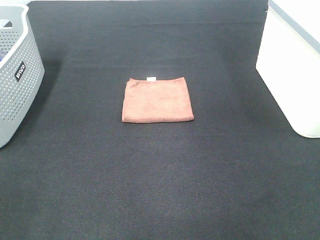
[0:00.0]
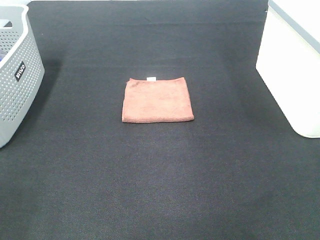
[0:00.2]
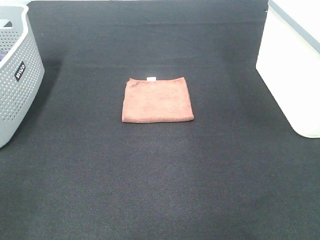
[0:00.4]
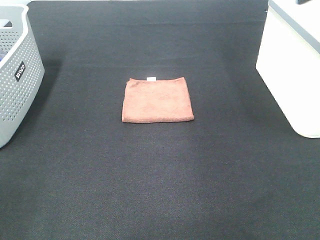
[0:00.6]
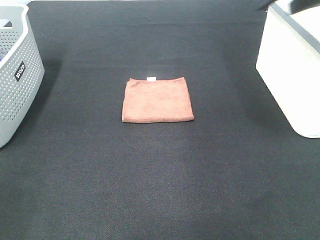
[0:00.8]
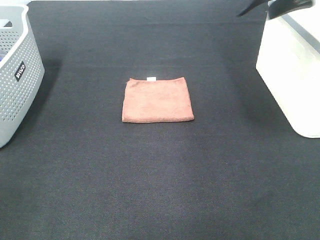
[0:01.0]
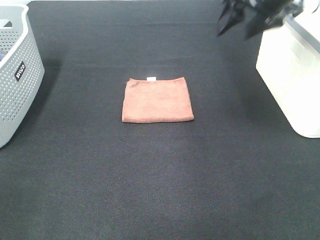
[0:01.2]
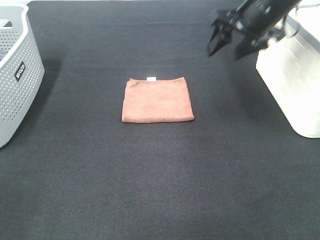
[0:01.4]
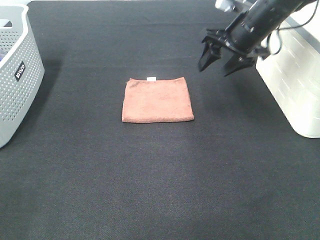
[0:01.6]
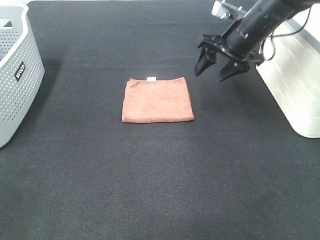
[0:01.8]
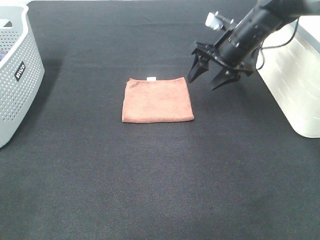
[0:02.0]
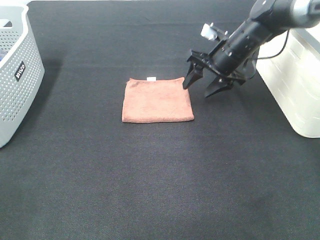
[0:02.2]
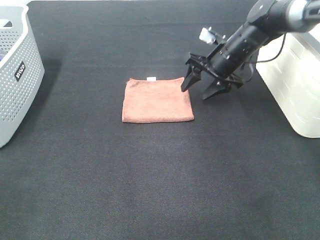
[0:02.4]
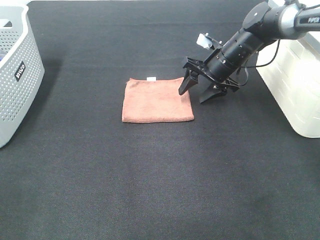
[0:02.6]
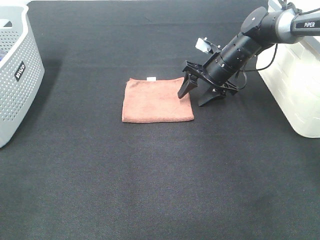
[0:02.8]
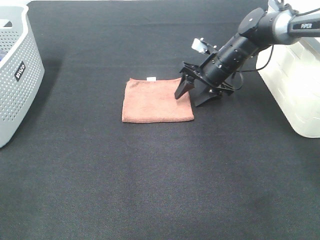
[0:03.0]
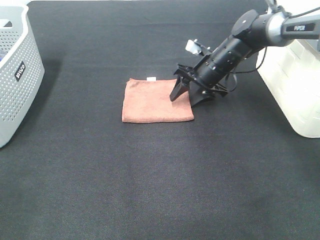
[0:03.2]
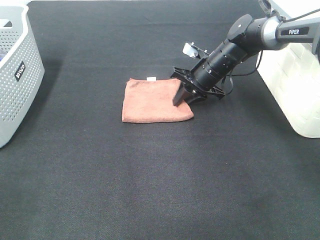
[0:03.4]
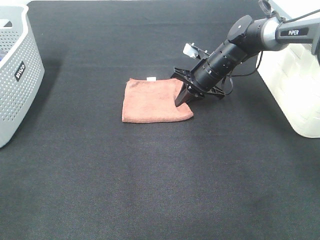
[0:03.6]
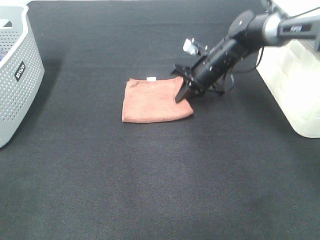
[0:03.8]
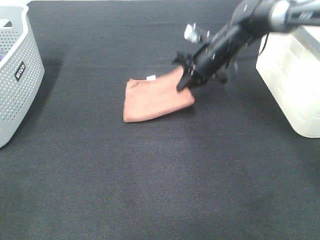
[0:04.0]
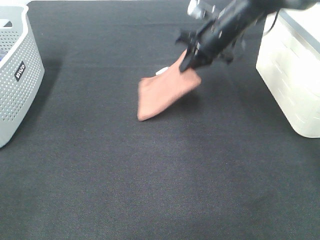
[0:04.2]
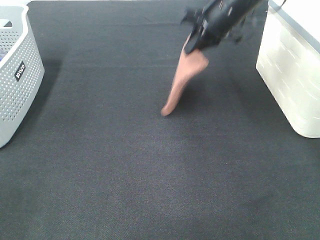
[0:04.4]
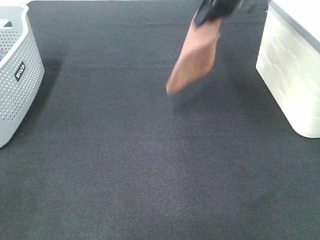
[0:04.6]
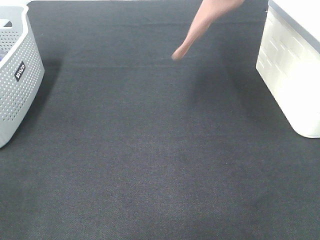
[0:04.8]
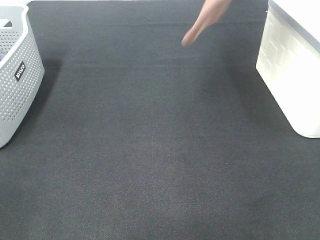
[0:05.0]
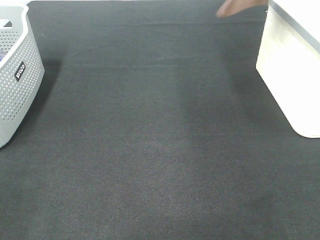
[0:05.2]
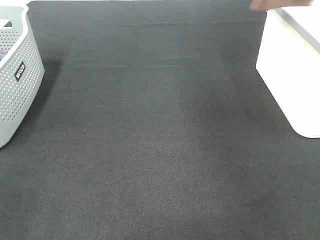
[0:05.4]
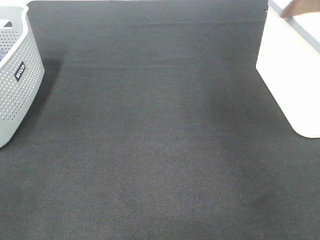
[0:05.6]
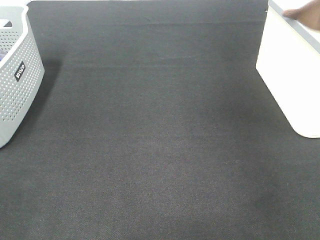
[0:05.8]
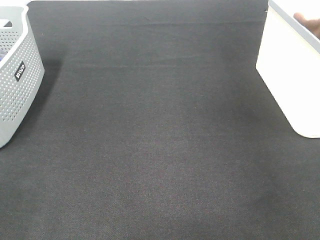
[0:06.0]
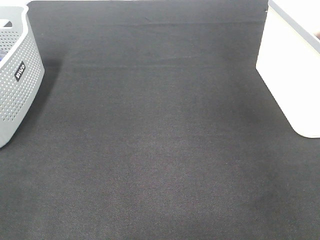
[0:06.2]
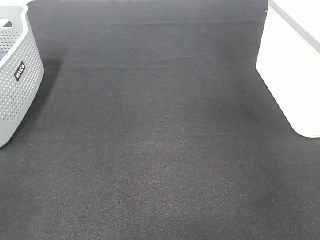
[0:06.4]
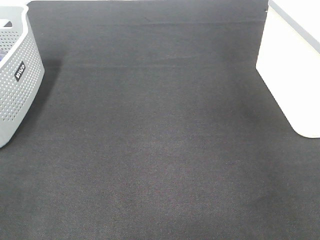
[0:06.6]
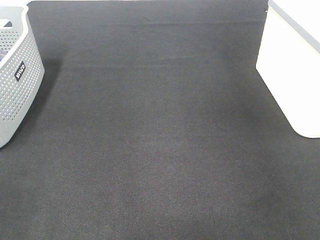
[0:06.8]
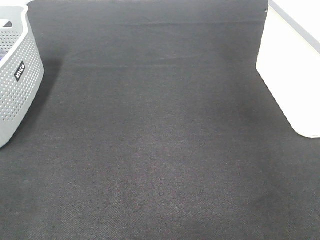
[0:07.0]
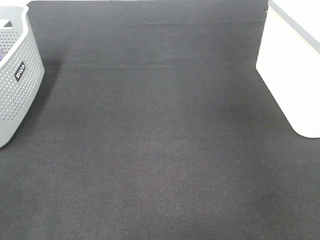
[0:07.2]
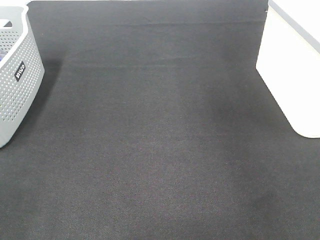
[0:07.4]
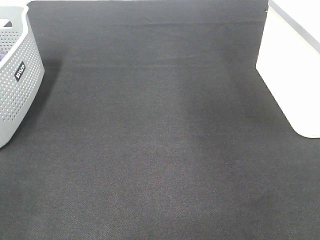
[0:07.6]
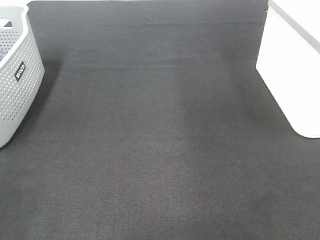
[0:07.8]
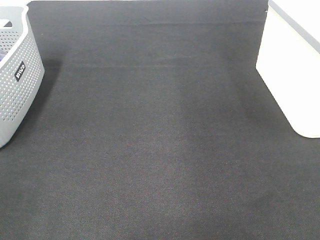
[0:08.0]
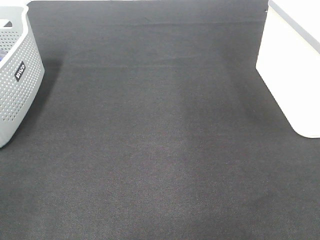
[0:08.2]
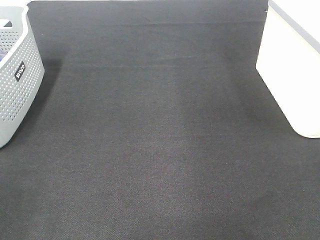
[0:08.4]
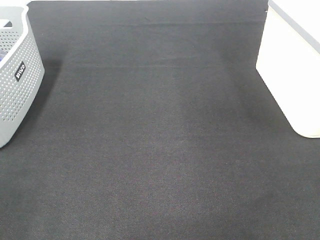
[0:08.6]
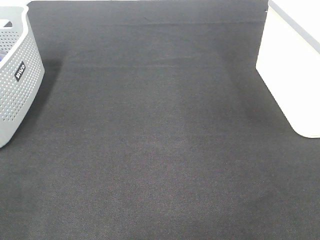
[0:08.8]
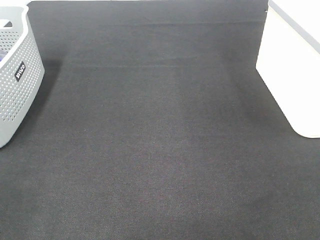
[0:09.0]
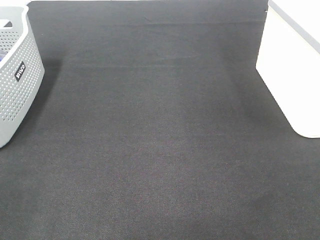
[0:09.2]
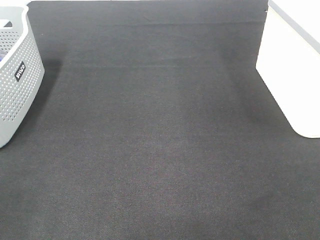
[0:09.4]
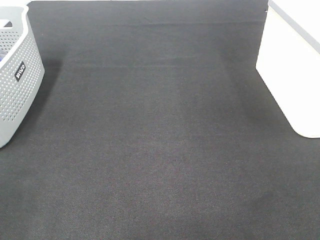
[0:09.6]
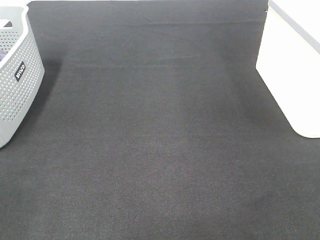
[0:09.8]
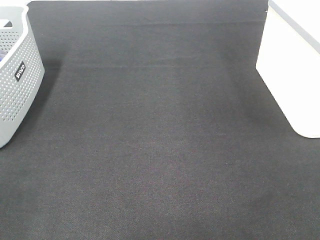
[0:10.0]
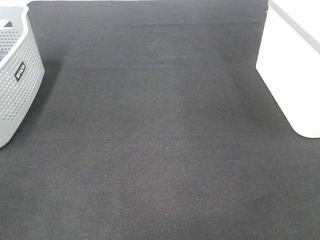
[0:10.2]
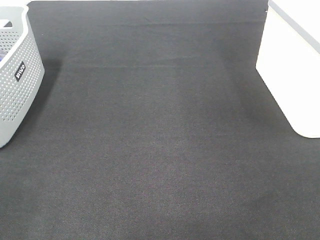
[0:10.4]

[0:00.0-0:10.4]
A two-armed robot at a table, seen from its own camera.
Step, 0:00.0 to 0:03.8: Right hand: grab the folded brown towel.
Step, 0:04.0 to 0:07.0: Right hand: place the brown towel in right basket.
0:00.0 to 0:01.4: The right gripper goes some 30 cm forward.
0:01.4 to 0:03.0: The right gripper moves downward and forward, approximately 15 cm.
0:03.0 to 0:04.4: The right gripper moves upward, about 15 cm, and closes up.
0:04.4 to 0:06.0: The right gripper goes some 25 cm to the right.

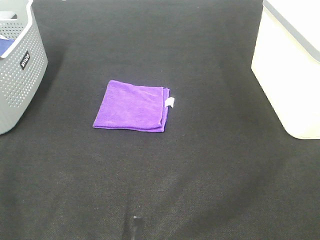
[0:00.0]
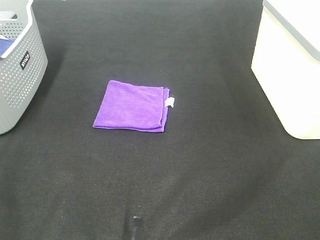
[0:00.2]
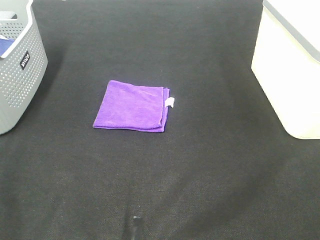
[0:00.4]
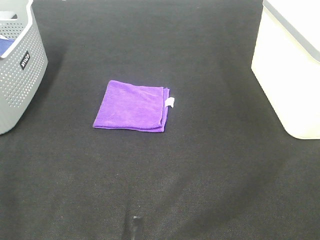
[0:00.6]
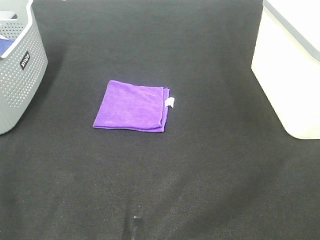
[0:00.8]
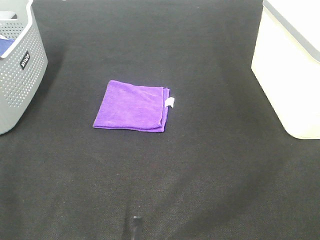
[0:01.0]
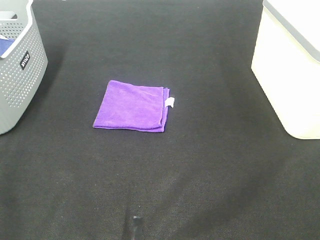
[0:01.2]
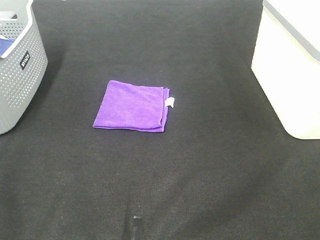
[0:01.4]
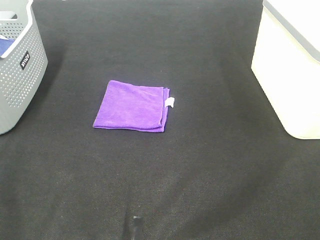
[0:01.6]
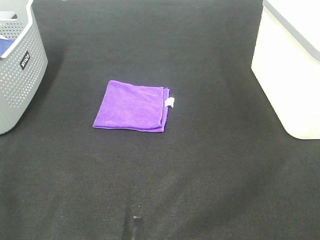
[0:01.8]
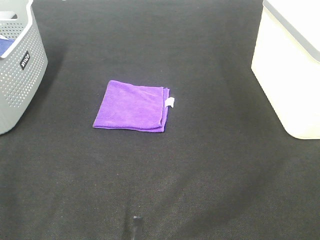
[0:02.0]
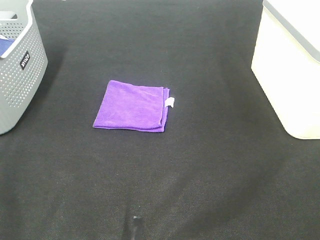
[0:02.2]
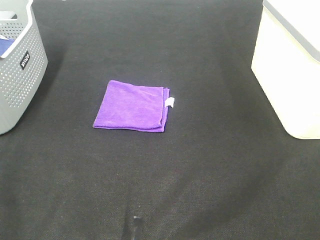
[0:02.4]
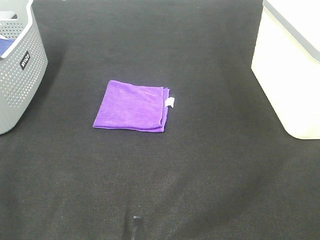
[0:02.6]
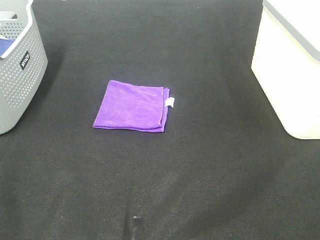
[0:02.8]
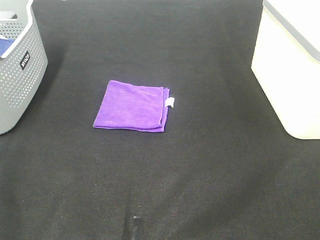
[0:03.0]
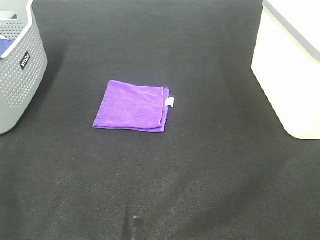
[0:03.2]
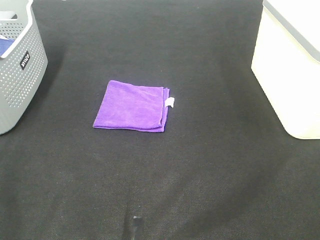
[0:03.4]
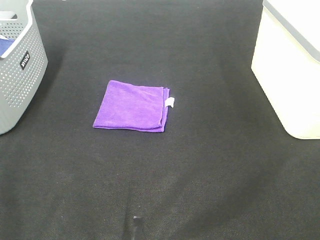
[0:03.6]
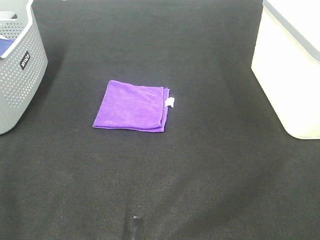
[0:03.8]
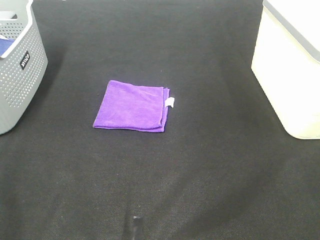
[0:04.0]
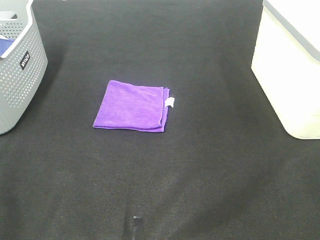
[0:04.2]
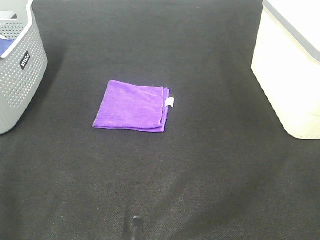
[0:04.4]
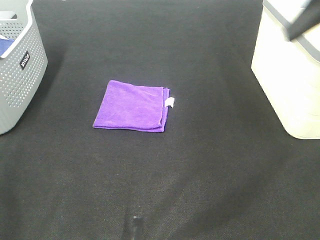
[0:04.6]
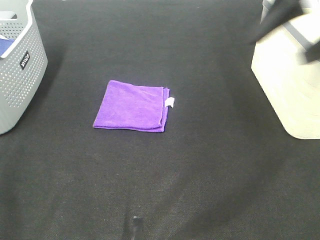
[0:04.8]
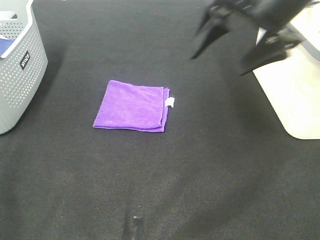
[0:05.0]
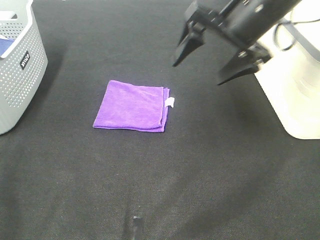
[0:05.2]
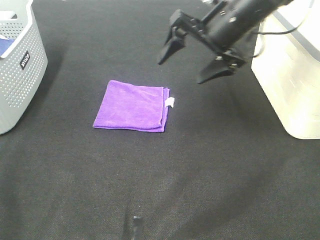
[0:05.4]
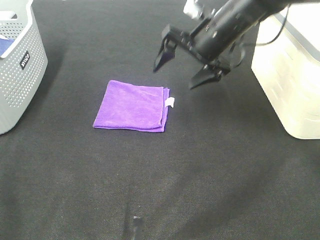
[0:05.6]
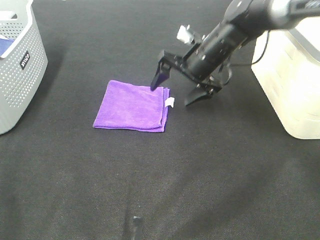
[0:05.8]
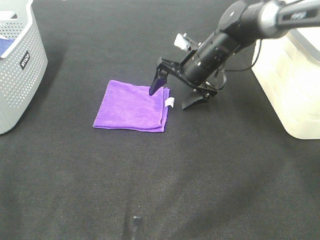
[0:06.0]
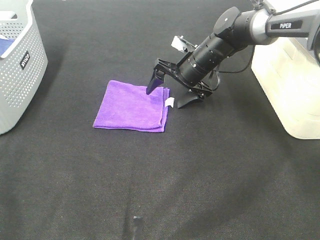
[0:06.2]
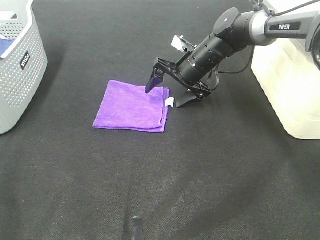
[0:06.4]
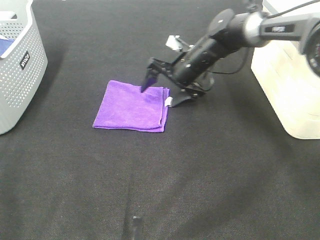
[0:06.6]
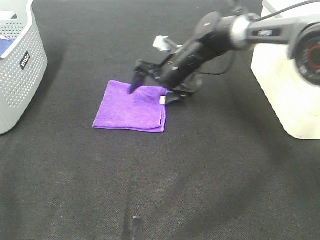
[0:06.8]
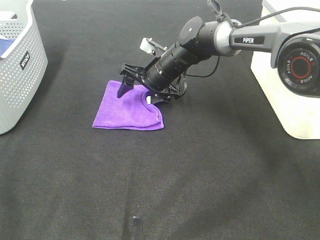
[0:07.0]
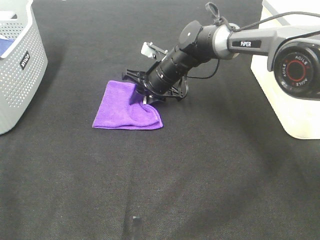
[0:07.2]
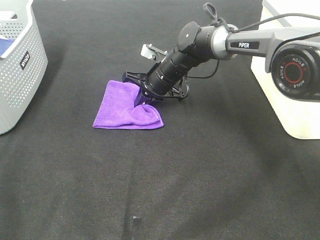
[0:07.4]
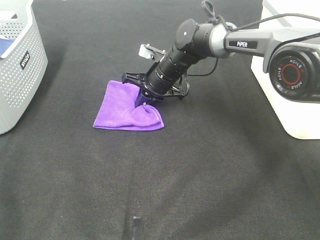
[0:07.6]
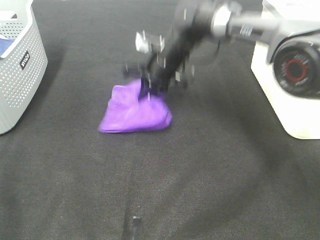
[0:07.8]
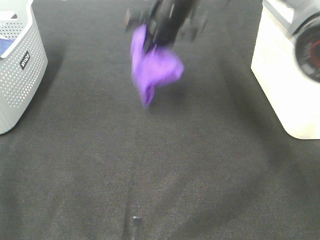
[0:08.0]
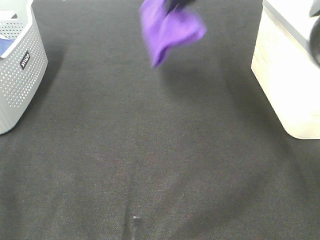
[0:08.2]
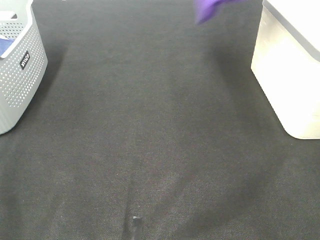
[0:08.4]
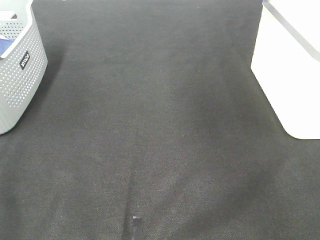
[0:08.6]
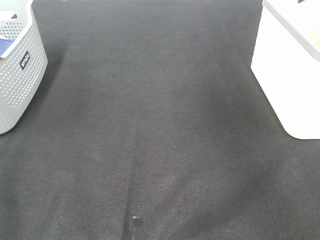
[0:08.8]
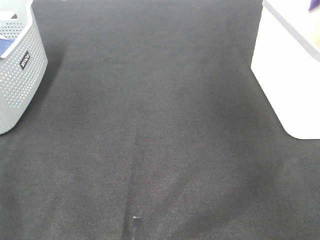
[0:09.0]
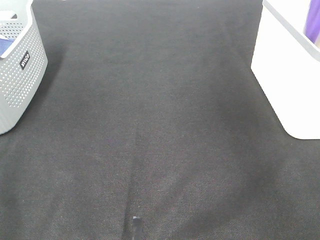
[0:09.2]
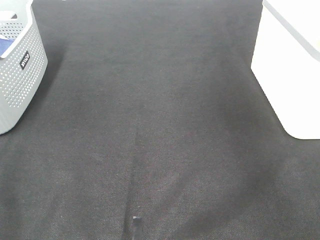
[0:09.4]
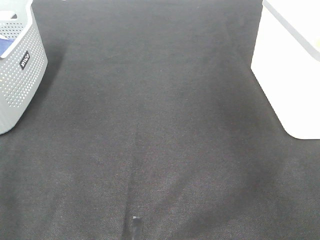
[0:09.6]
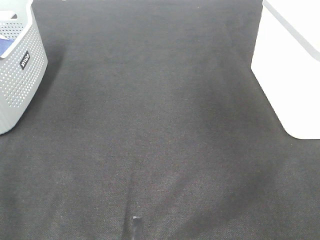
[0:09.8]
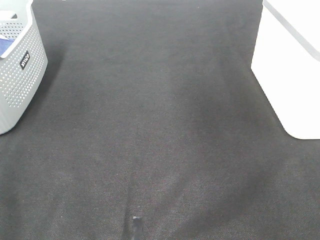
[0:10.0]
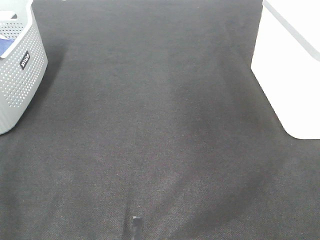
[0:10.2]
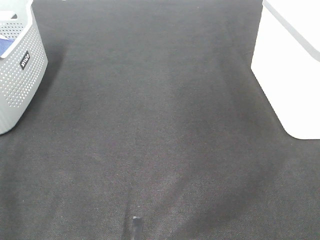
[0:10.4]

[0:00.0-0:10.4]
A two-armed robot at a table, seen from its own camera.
Step, 0:00.0 to 0:07.4: Right hand: grab the folded purple towel.
Step, 0:07.6 to 0:09.4: Right hand: place the purple towel in right basket.
0:00.0 to 0:03.0: The two grippers keep their place.
0:04.4 to 0:06.0: The right gripper heads forward, downward and to the left, covering roughly 40 cm.
0:06.0 to 0:07.4: The right gripper heads to the left, covering some 10 cm, and closes up.
0:07.4 to 0:09.0: The right gripper goes approximately 50 cm to the right and upward.

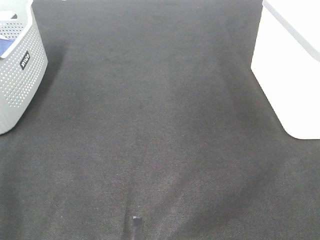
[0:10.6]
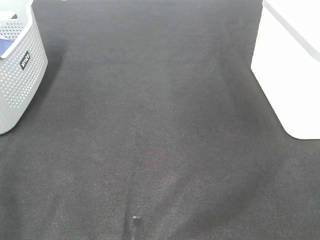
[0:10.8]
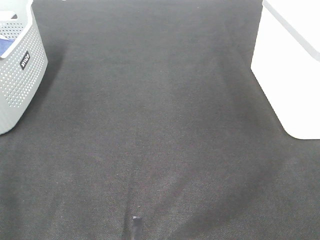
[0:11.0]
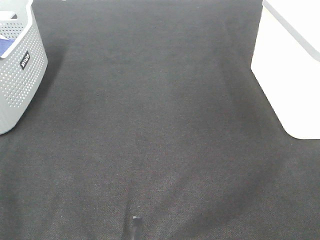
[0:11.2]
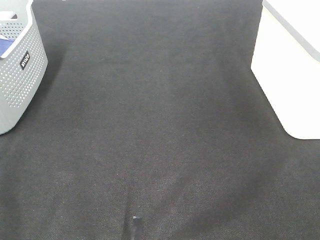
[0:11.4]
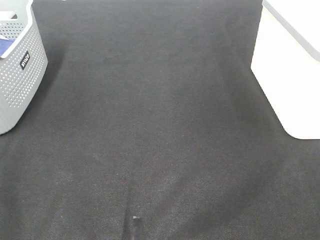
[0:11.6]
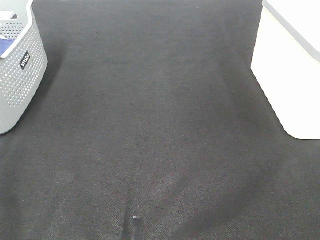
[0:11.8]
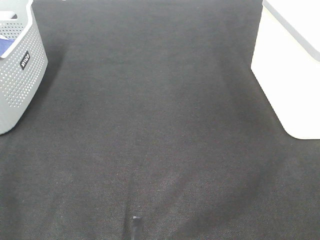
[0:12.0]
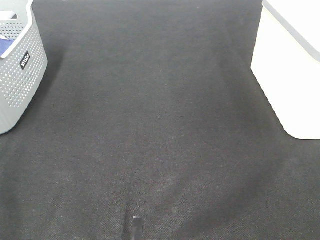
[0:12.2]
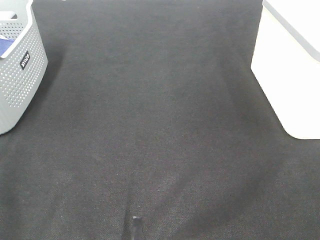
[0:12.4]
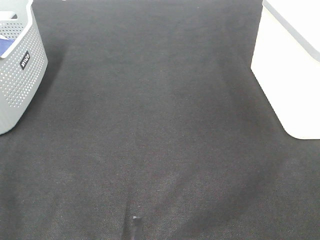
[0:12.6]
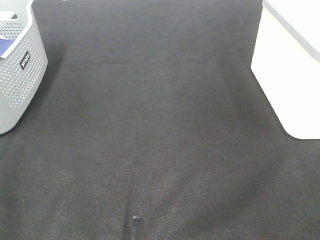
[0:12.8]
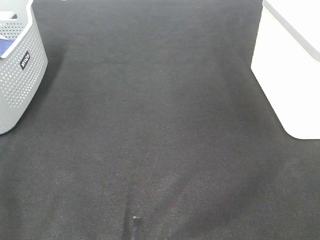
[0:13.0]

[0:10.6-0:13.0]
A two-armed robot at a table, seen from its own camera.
0:11.8 to 0:13.0: Both grippers stay about where they are.
